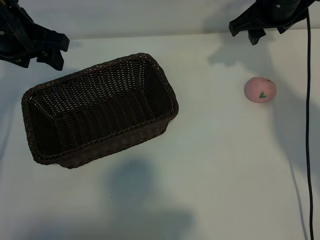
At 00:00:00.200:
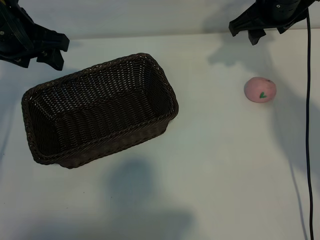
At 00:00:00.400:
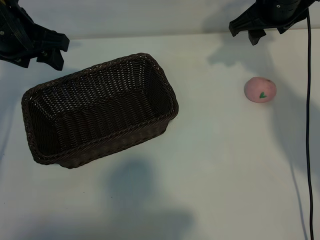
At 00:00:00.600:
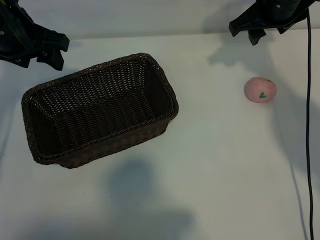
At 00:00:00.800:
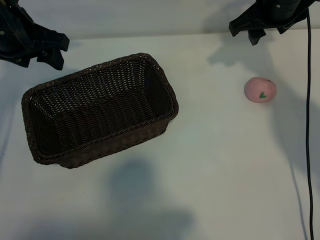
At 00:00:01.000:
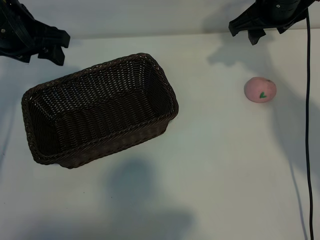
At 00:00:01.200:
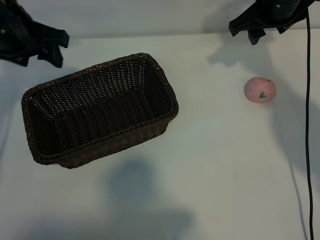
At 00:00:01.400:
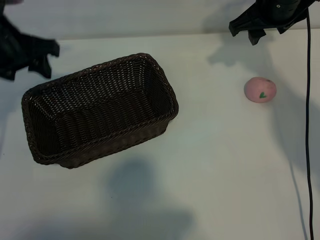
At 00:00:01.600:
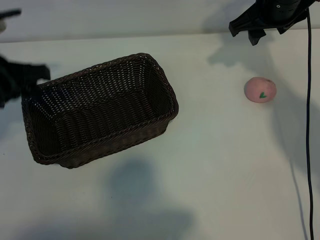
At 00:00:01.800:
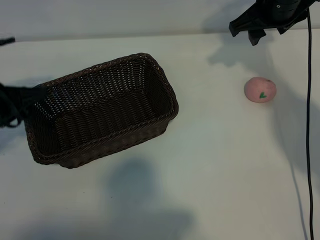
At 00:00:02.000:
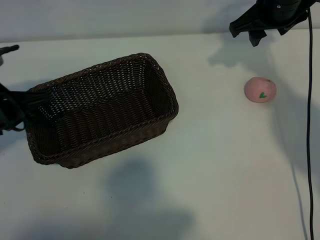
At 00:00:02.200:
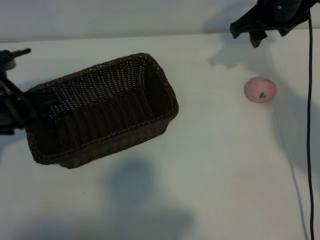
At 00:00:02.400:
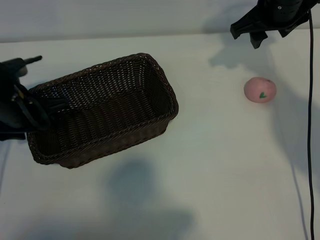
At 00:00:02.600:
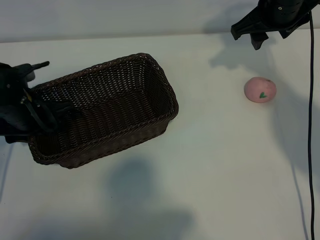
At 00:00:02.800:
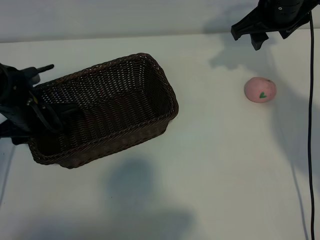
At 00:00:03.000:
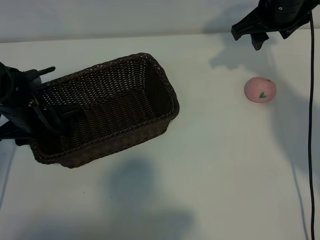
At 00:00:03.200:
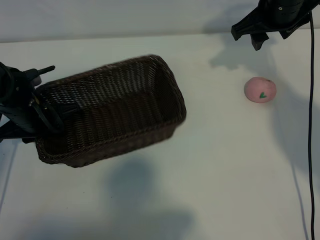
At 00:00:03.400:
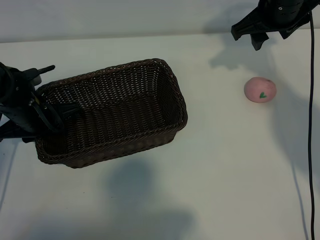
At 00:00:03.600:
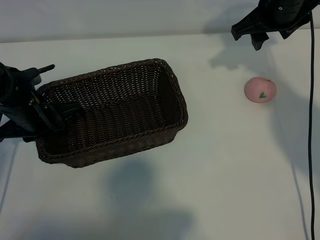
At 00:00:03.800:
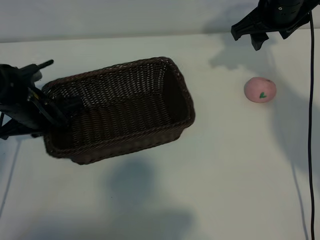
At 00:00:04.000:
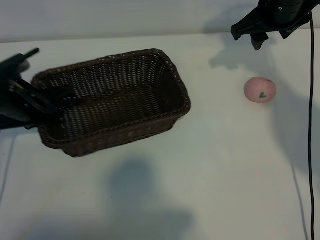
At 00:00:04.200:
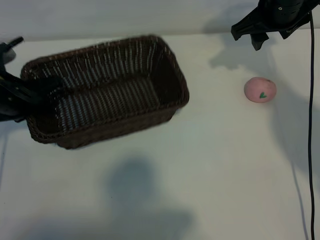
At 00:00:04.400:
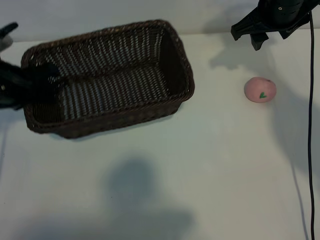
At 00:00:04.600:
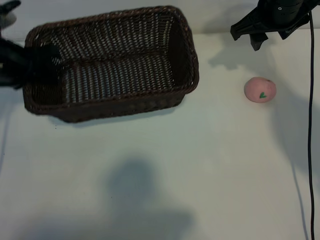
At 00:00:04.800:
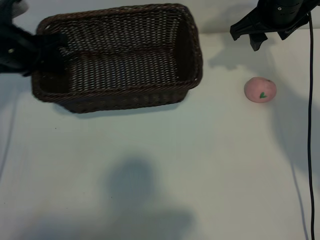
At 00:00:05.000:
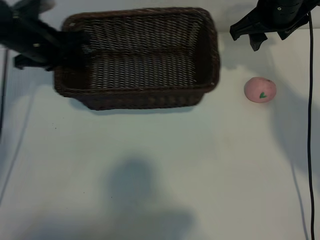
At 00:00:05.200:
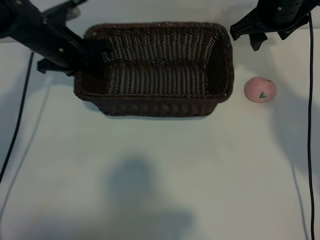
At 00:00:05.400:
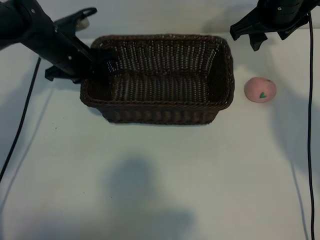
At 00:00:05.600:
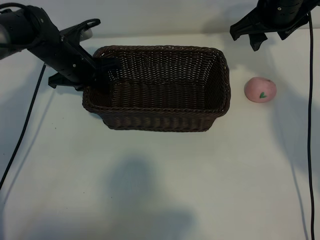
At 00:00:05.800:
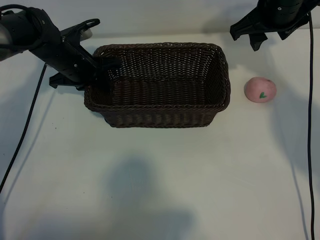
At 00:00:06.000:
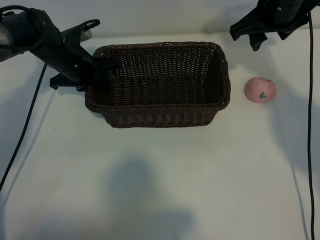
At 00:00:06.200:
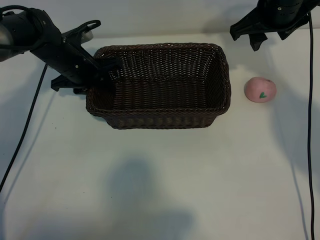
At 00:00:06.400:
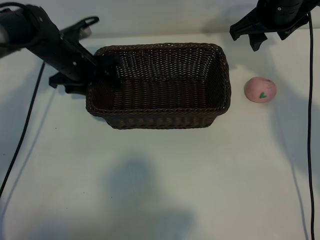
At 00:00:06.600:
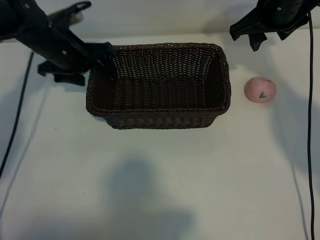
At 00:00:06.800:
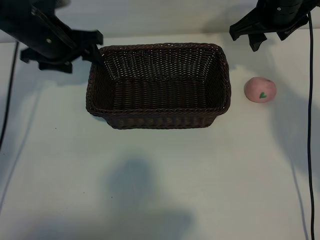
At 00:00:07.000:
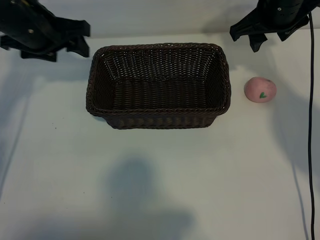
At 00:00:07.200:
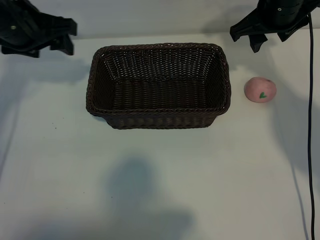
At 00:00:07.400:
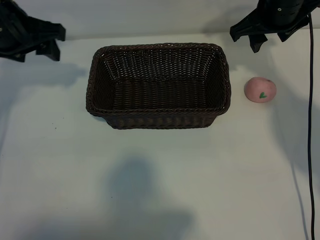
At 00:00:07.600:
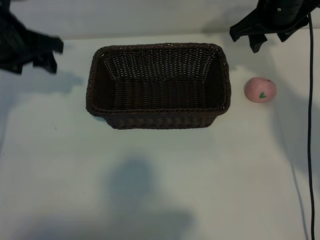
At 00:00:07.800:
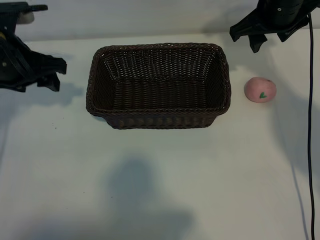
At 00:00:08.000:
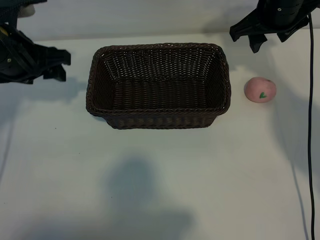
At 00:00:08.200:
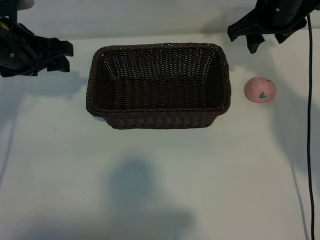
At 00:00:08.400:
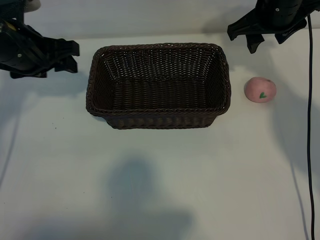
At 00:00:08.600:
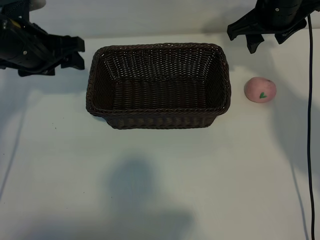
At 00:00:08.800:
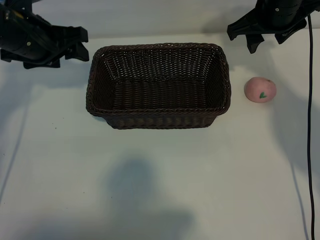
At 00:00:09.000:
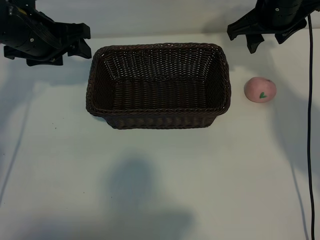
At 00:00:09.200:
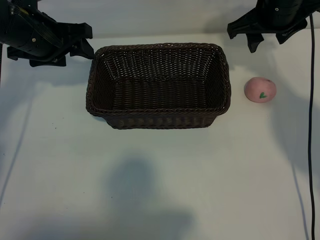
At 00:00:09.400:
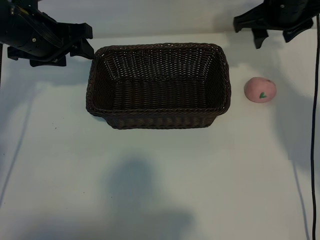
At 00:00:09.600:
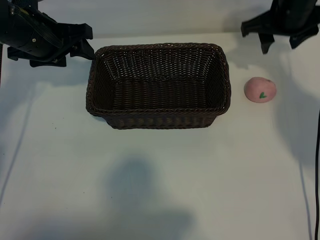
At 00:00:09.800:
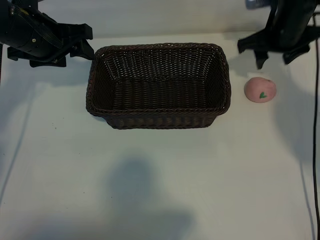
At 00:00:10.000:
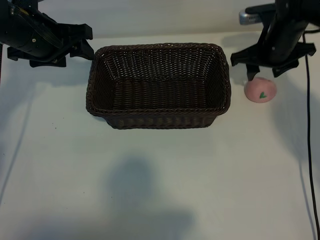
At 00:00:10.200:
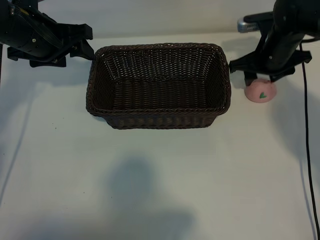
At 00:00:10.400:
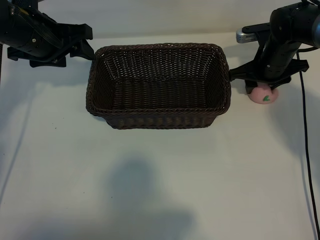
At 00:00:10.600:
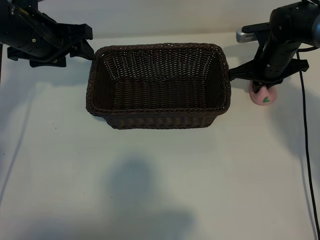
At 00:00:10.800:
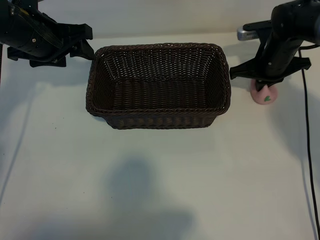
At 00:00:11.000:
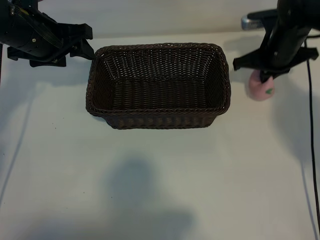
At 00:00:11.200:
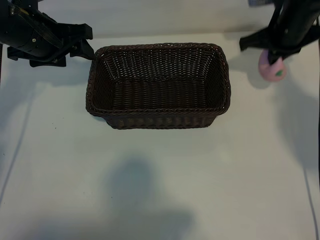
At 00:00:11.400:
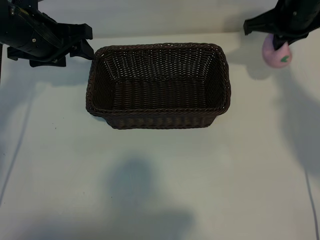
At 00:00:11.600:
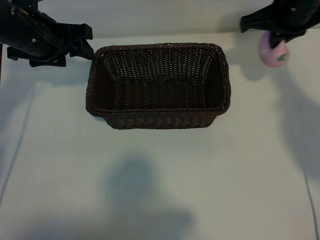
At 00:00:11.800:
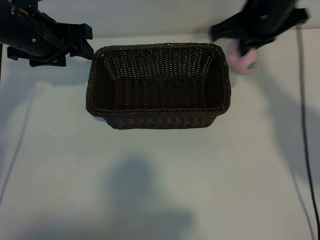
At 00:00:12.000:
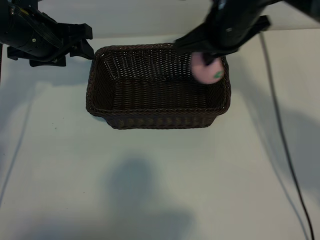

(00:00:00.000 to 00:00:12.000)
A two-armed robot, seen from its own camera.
Task of the whole recording: pick up the peach and put it into the basket.
Step, 00:00:00.800 - 00:00:03.000: Grasp the basket with left gripper.
Step, 00:00:03.400 - 00:00:06.400: Place the basket in the center of view with left gripper.
Step, 00:00:06.600 - 00:00:10.600: Grasp the peach with right gripper.

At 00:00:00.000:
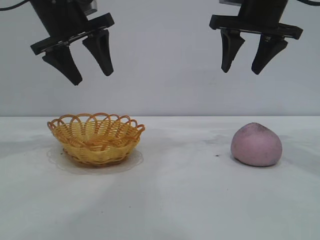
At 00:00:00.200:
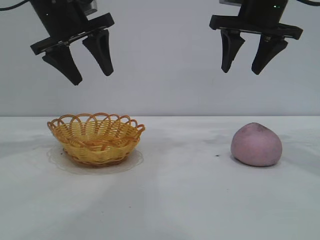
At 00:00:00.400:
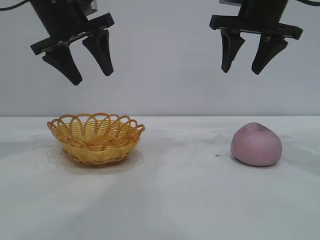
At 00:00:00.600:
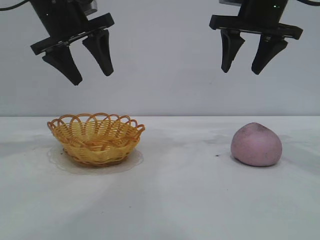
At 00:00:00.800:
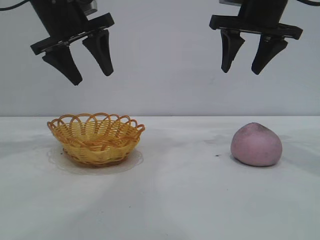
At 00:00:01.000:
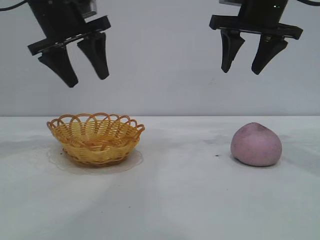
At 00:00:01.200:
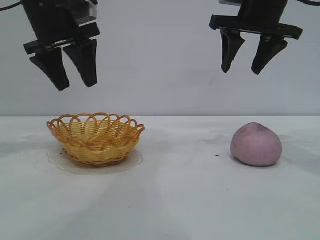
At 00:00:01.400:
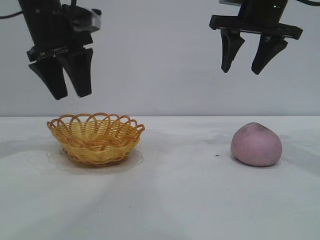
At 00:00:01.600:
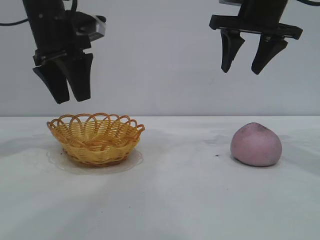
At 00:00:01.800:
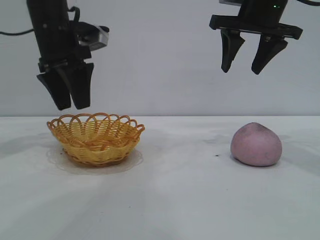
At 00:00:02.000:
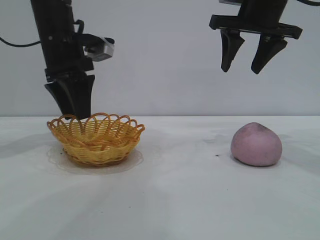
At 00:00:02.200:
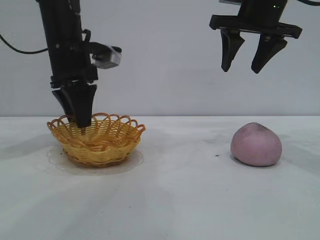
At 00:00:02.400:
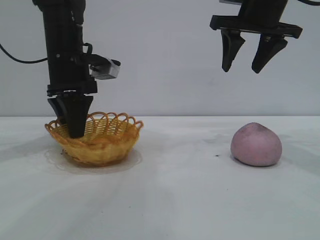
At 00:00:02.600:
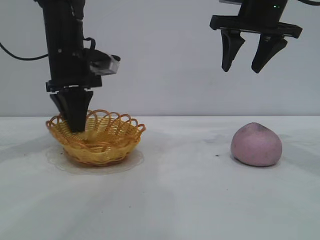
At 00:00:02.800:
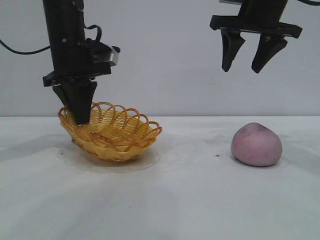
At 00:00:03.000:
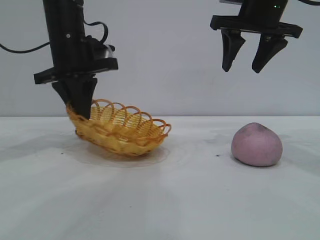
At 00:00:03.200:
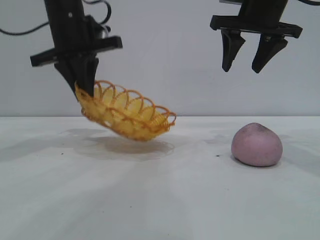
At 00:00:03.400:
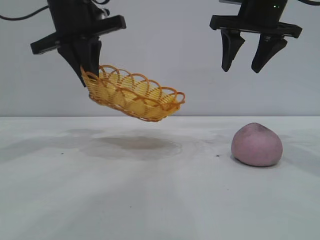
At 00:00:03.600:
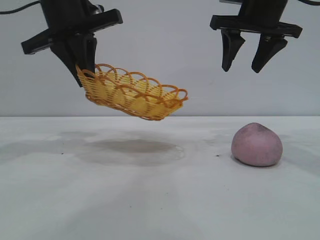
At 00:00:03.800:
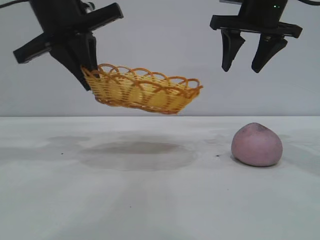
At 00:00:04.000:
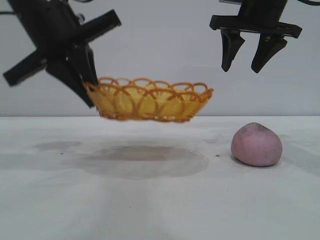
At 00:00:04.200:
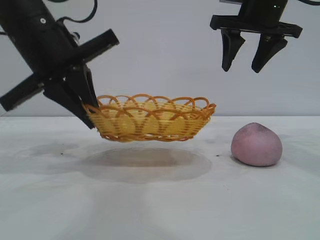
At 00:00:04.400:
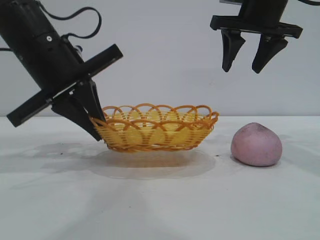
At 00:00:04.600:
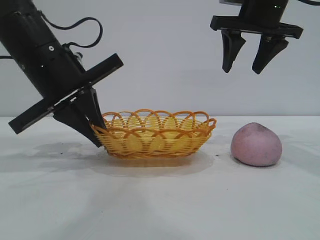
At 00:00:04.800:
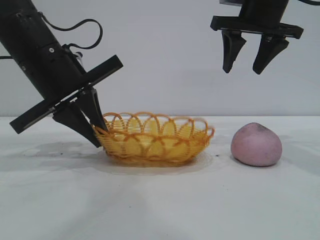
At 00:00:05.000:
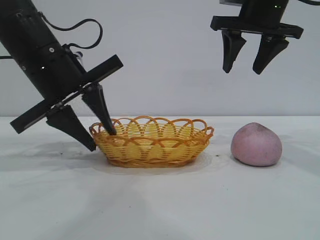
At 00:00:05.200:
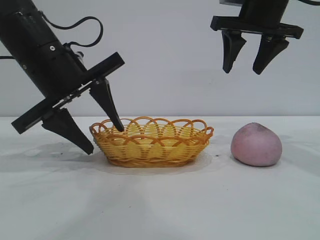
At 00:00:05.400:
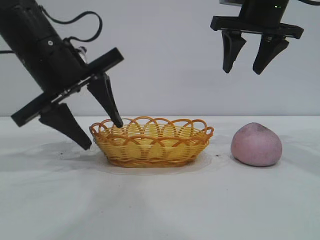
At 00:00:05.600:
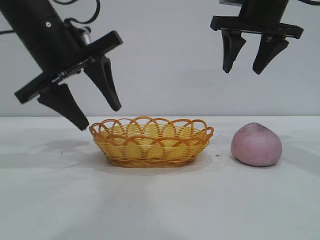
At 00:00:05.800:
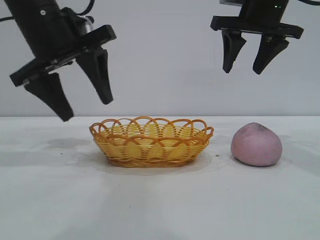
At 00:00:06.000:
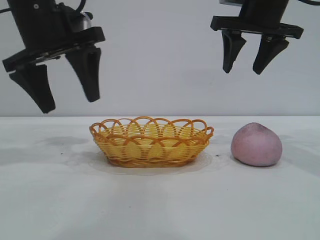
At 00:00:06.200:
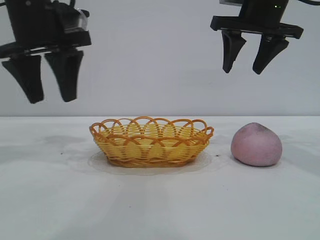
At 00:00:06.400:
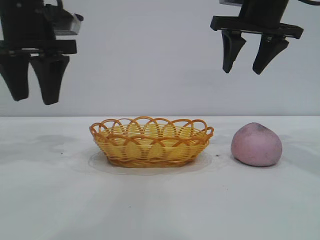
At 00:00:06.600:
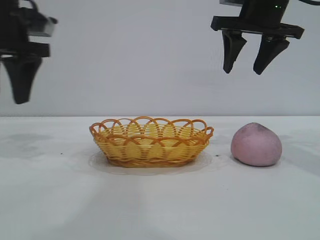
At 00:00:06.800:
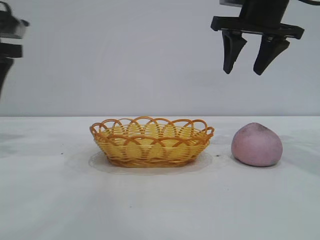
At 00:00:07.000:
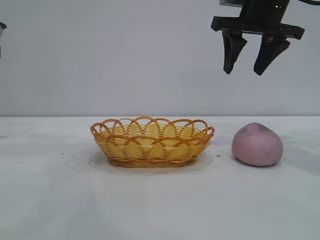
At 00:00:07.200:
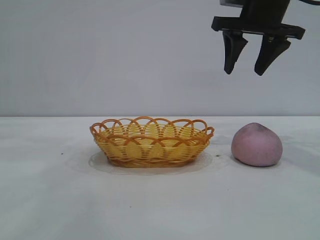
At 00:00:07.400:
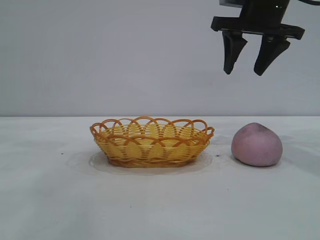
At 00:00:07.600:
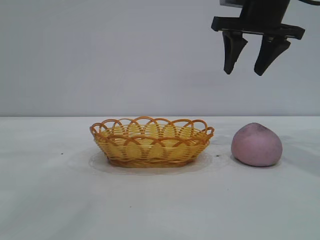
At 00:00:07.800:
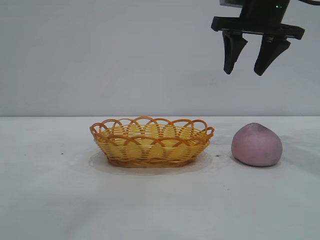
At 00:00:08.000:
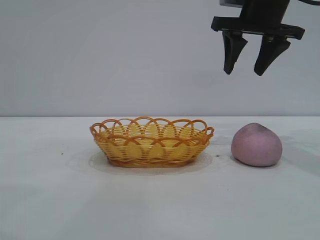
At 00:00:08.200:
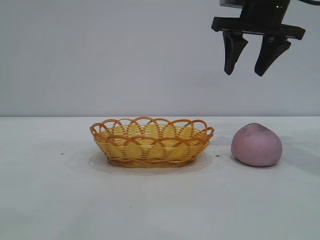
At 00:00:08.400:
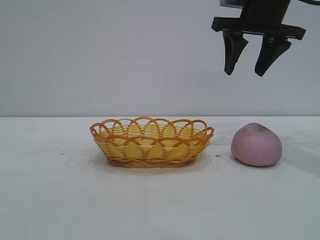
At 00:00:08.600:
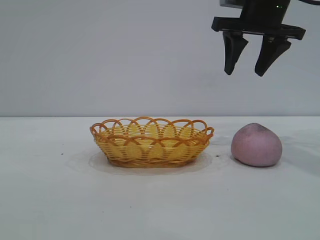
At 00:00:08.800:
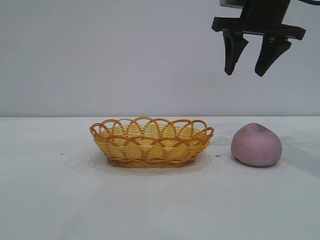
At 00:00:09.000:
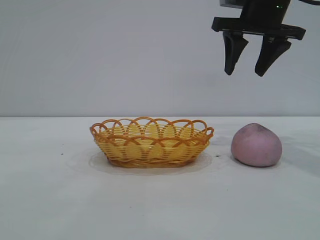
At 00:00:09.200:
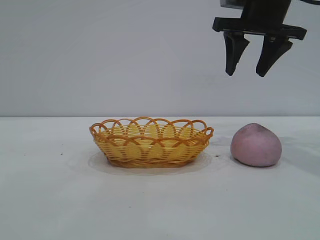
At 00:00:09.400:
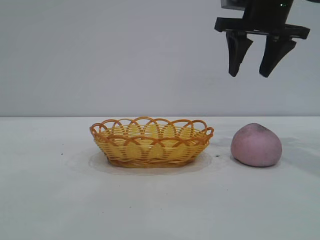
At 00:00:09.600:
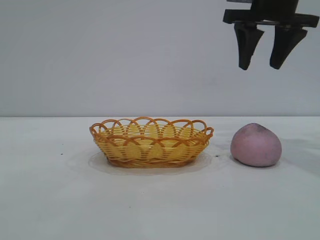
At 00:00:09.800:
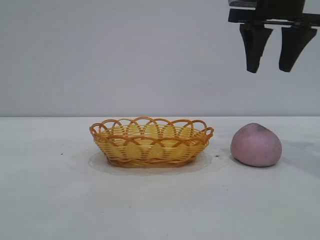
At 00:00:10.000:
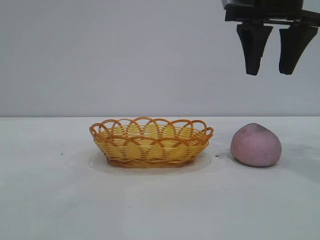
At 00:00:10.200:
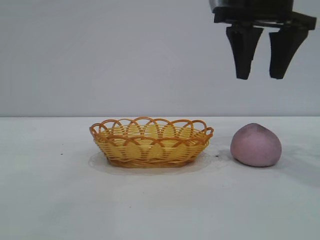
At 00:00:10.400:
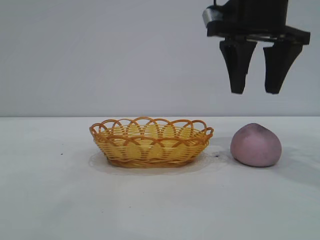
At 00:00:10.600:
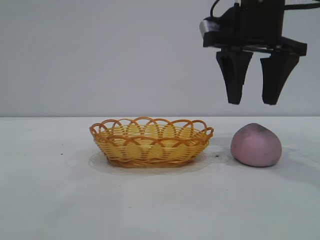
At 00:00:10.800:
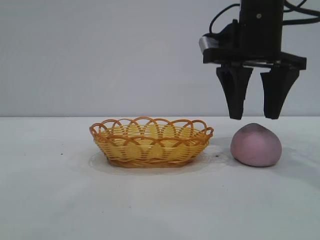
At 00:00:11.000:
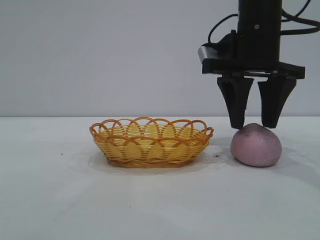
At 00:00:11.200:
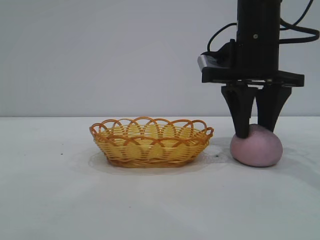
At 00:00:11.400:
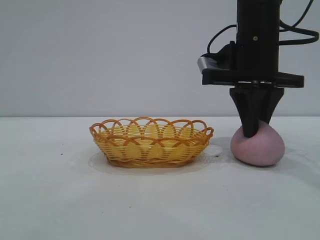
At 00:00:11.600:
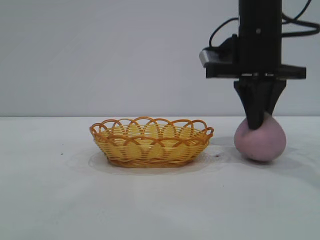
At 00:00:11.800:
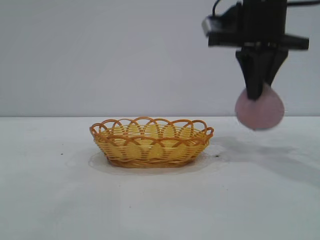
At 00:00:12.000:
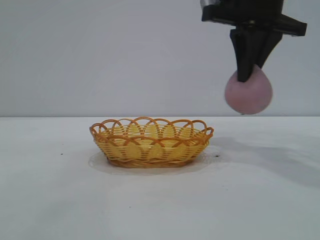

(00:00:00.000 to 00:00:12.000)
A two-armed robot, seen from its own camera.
Task of the whole recording: pick up the peach and put it into the basket.
Step, 00:00:00.000 - 00:00:05.600: Move the basket to the center of view.
Step, 00:00:05.800 - 00:00:11.600: Pick up the peach.
